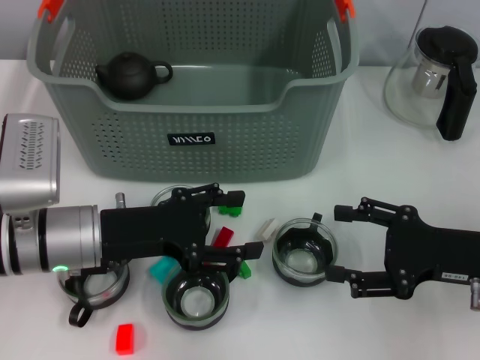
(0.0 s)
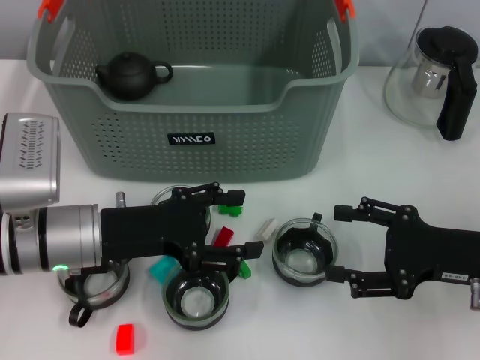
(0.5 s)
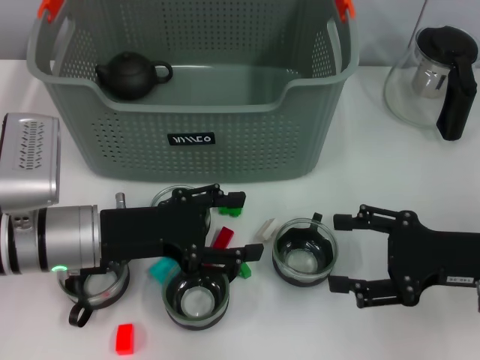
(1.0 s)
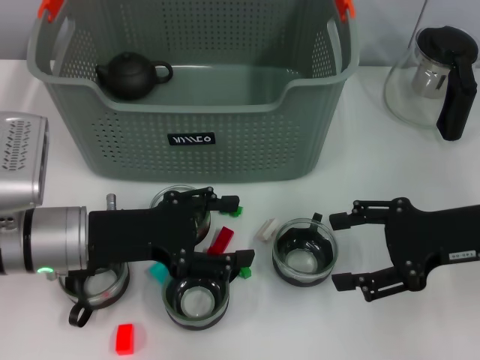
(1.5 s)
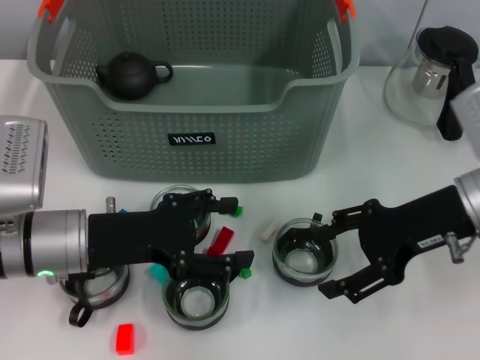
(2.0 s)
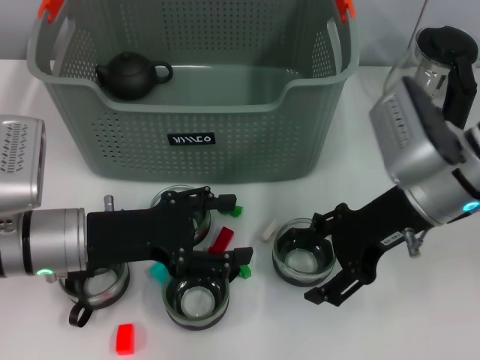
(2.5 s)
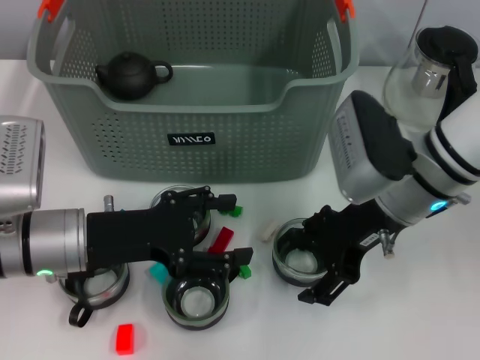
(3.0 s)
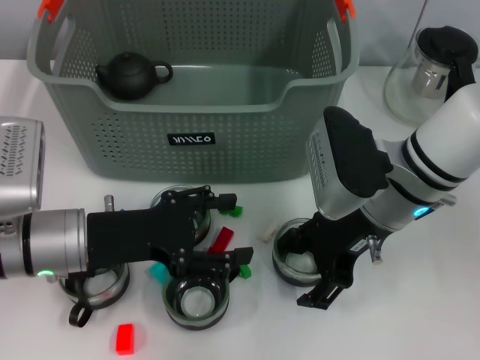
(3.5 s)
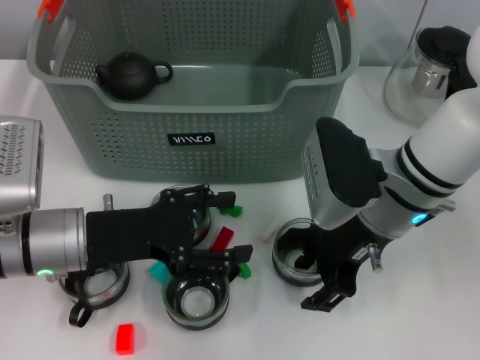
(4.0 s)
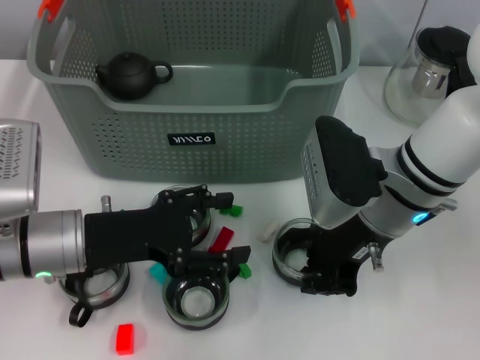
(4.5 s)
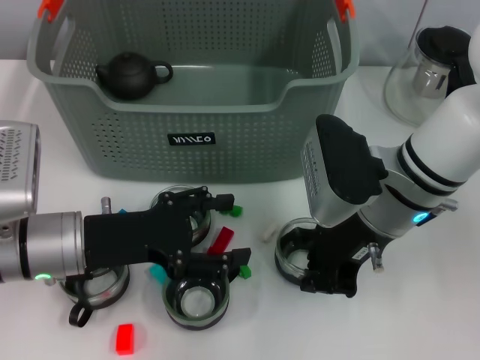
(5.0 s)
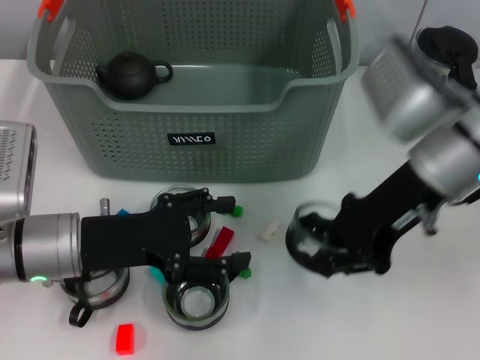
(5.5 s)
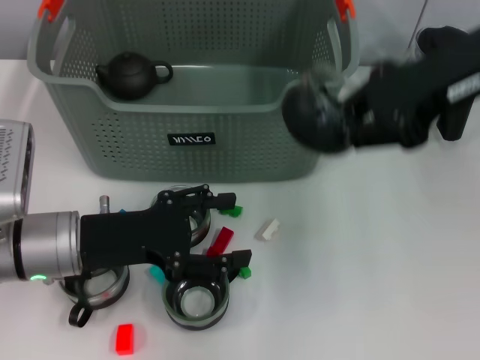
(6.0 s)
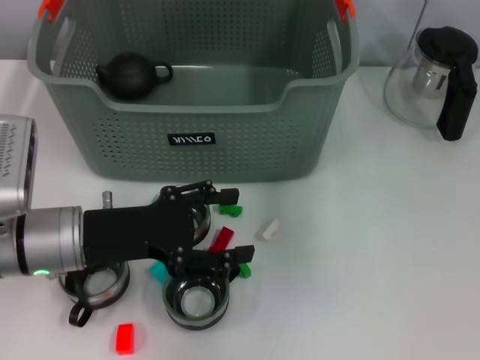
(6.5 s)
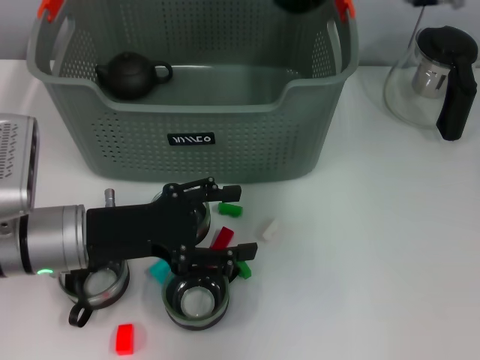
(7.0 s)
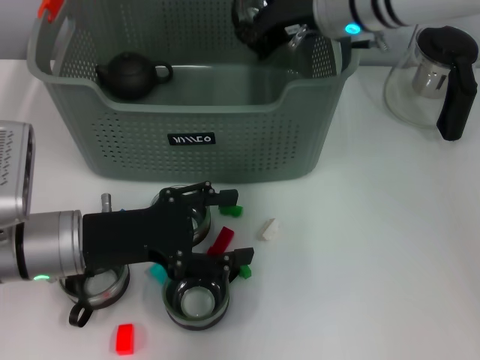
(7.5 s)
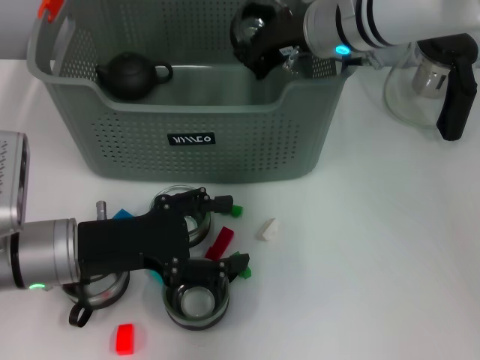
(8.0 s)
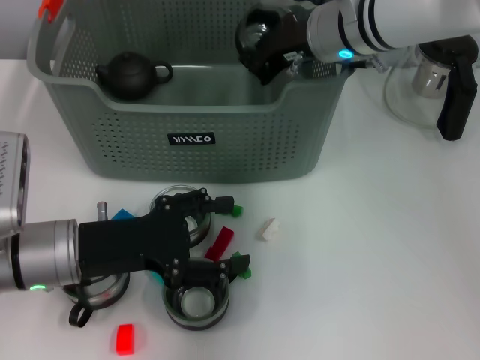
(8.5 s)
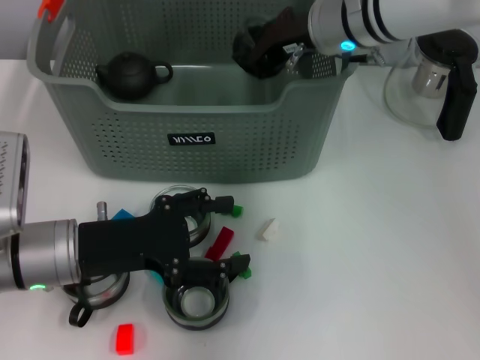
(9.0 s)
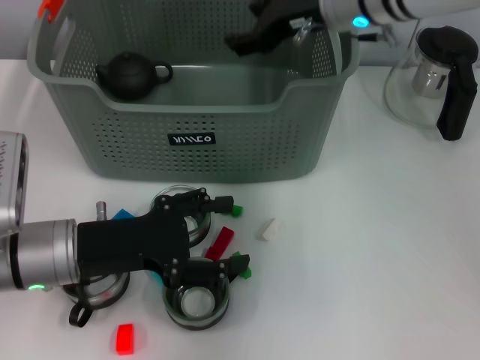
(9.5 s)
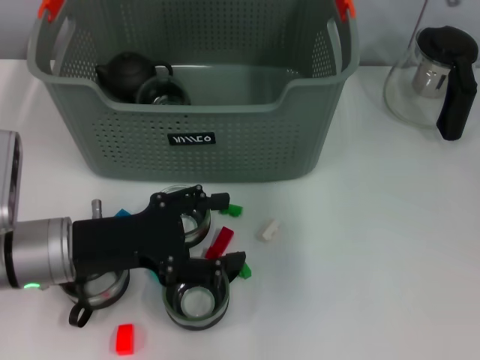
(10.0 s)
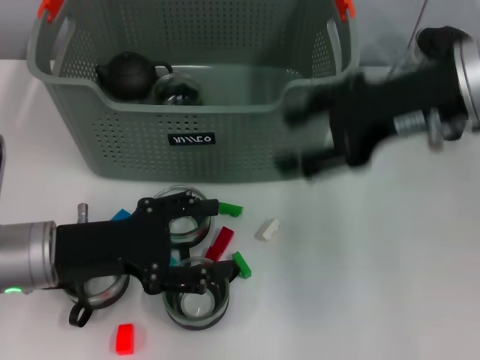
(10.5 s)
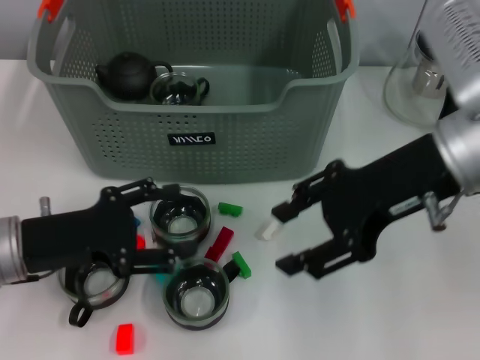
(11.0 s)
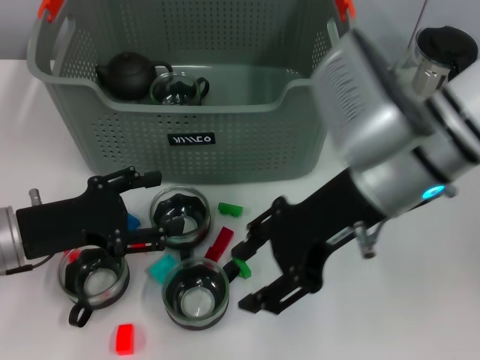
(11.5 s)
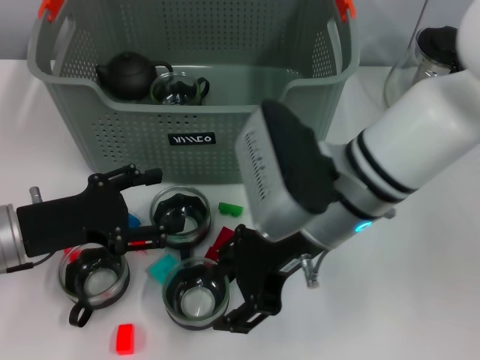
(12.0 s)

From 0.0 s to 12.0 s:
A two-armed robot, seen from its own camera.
Task of the whole recording: pick up the teacup on the table and place it into the storage bin, pick up the block on the table and place it into the storage bin.
Step, from 0.0 s to 4.5 s: Grasp the cup with right gripper.
Step, from 5.0 s to 9.0 s: Place the cup in the storage box with right gripper.
From 0.0 s to 2.0 s: The right gripper goes some 10 cm forward and upward.
From 2.0 s to 4.0 s: The right gripper travels to the left by some 10 cm.
From 4.0 s to 6.0 s: The right gripper shifts roughly 20 cm upward and to the right, and closes its fingers.
From 6.0 s to 8.0 s: The right gripper moves to the left, downward and forward, approximately 20 cm.
From 8.0 s to 10.0 s: The right gripper heads upward and to the right, covering about 10 cm, and opens.
From 10.0 s to 12.0 s: The right gripper is displaced downward, backward and to the left by about 20 cm.

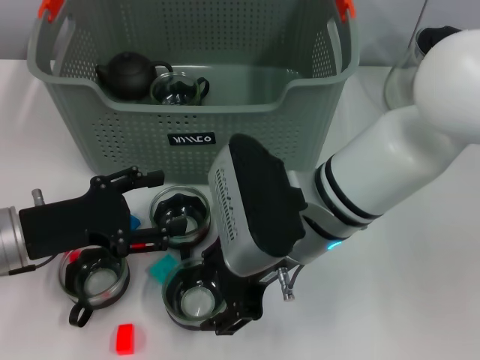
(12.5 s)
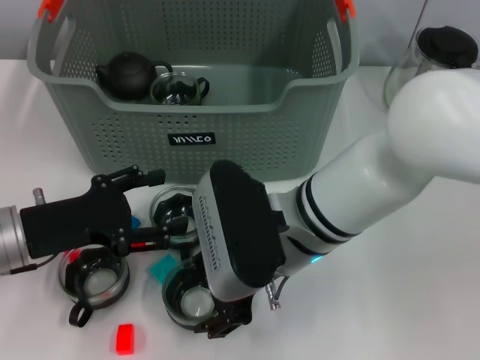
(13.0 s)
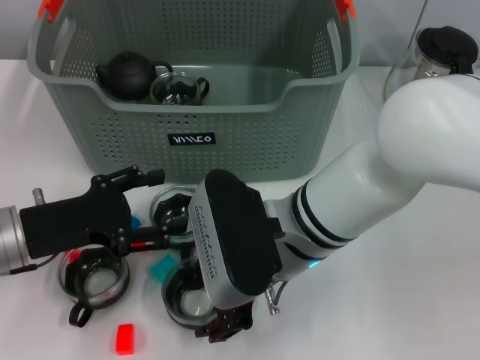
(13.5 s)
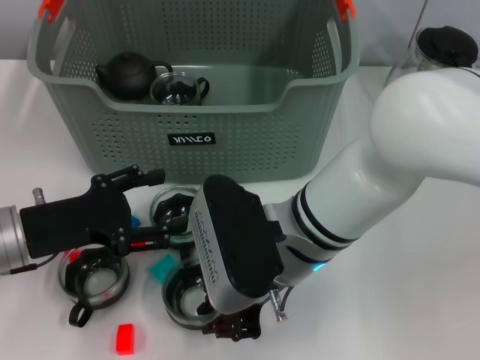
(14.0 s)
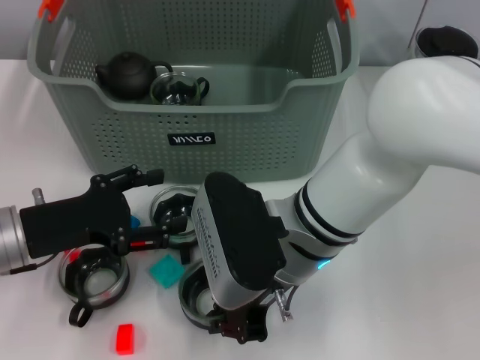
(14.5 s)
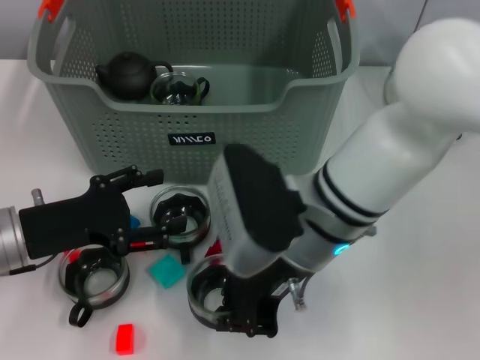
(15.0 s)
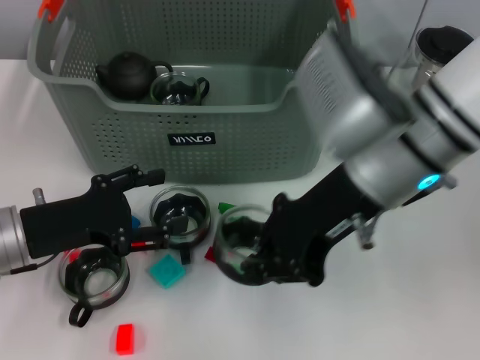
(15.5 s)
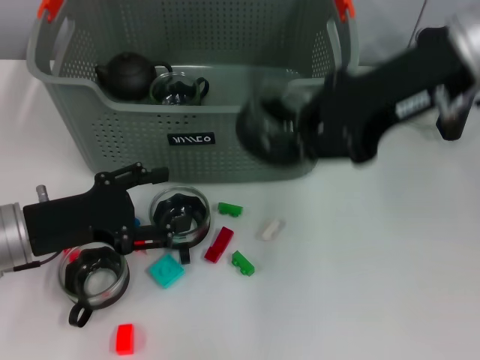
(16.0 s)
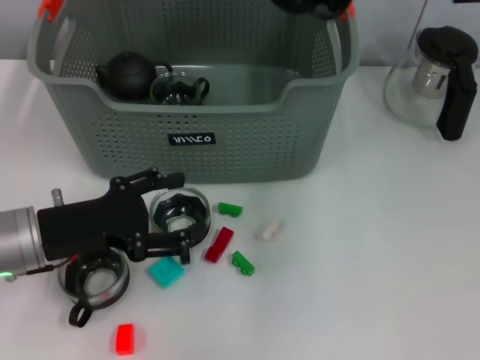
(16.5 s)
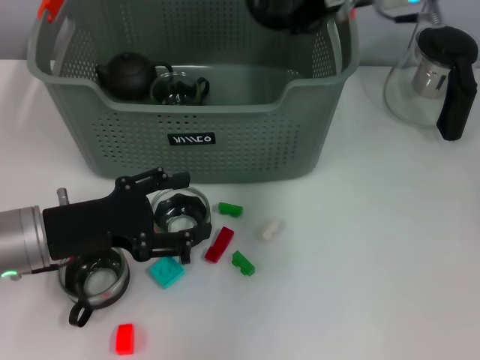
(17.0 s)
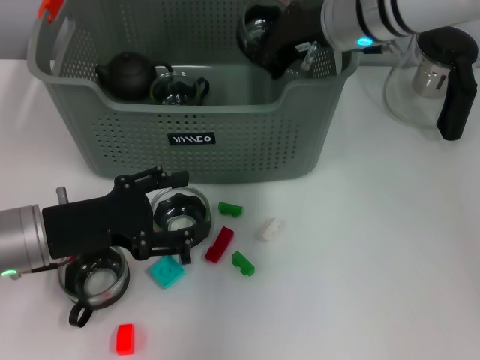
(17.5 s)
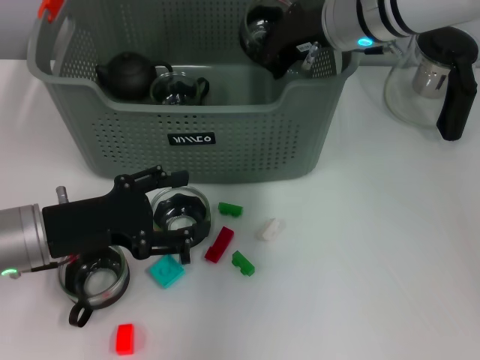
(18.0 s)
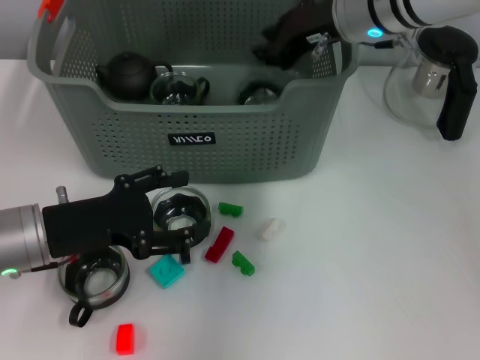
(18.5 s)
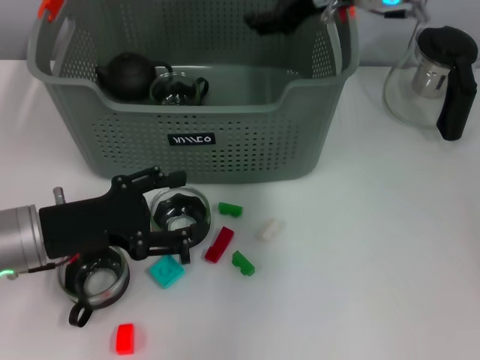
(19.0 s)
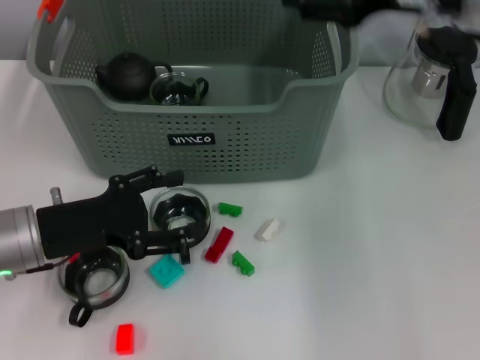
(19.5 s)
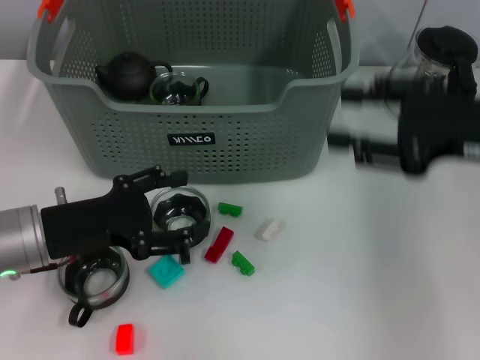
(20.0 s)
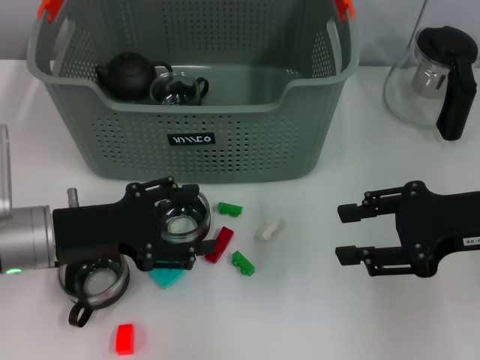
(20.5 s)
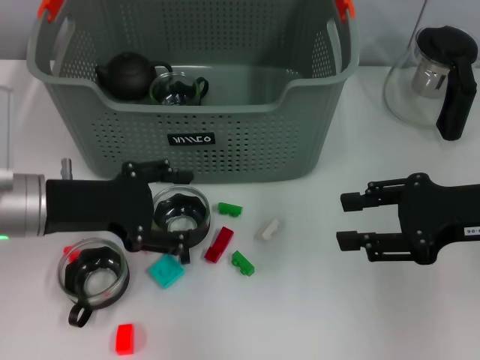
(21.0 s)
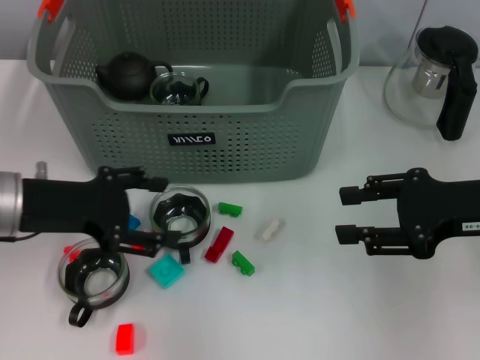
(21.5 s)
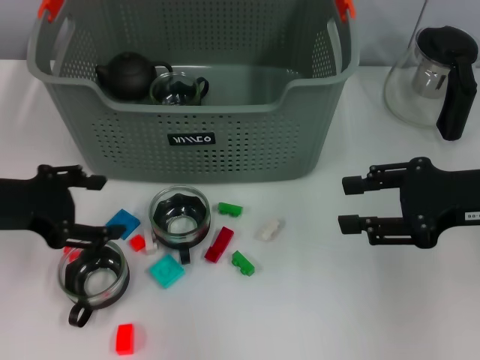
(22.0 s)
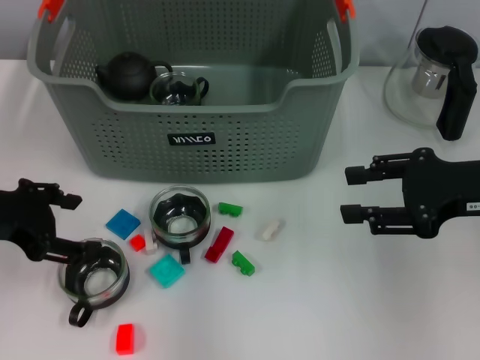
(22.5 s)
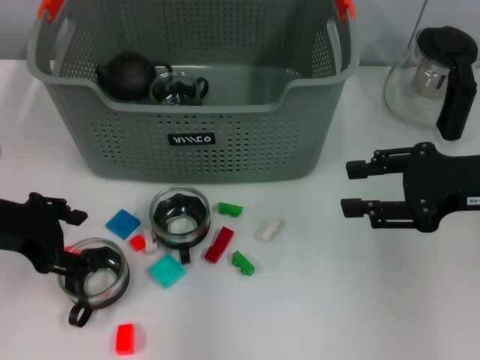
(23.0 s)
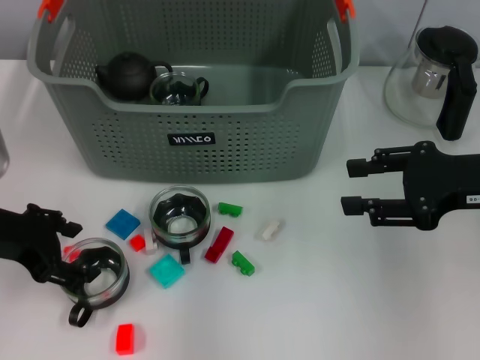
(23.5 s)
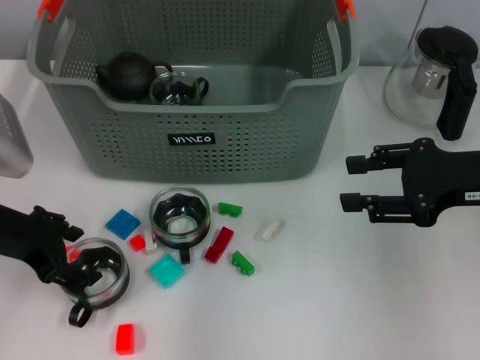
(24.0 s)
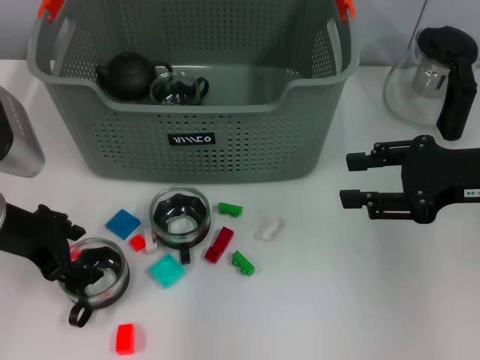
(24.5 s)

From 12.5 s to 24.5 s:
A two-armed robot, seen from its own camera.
Task of the whole recording: pick up the teacup on the table and place it into the storage bin, pick up the block on the table and place it into the storage bin.
Step, from 14.5 s to 18.5 s: Place the cup in the storage box with right gripper.
From 12.5 s to 14.5 s: The right gripper closes.
From 14.5 s to 16.5 s: The right gripper goes about 25 cm upward, to the right and forward.
From 16.5 s to 18.5 s: The right gripper travels downward and to the left by about 10 cm.
From 18.5 s to 20.5 s: The right gripper goes about 25 cm backward and to the right, and opens its fingers.
From 20.5 s to 22.5 s: The left gripper travels upward and to the left by roughly 10 cm.
From 22.5 s to 24.5 s: The grippers move only a little.

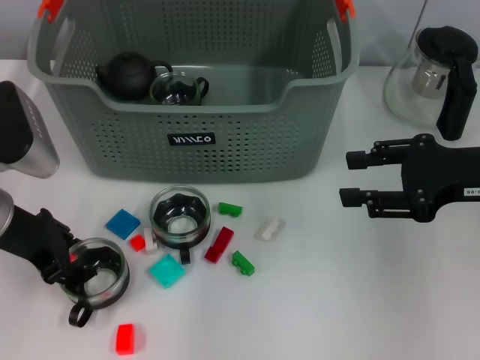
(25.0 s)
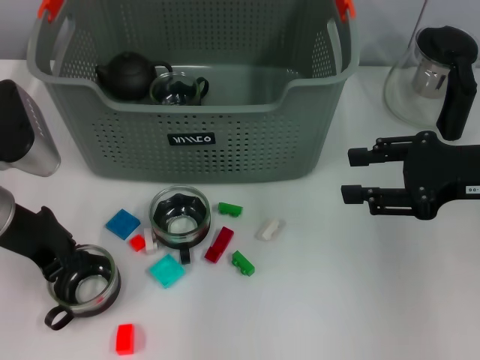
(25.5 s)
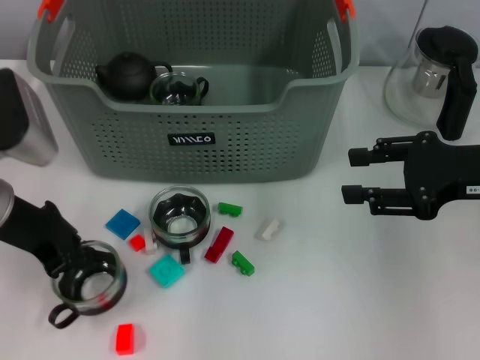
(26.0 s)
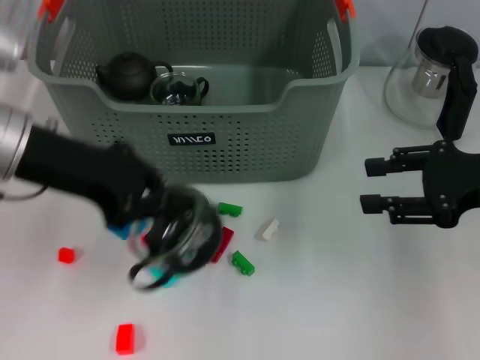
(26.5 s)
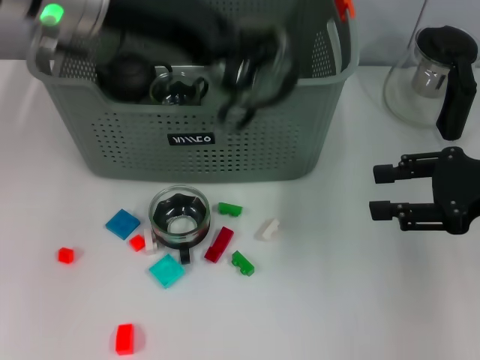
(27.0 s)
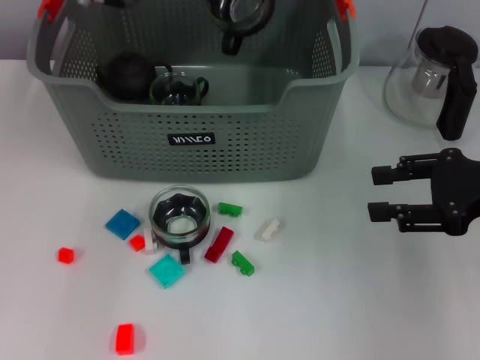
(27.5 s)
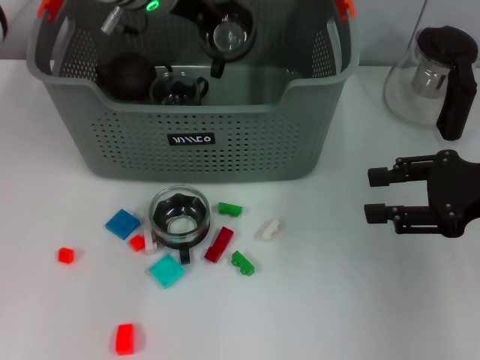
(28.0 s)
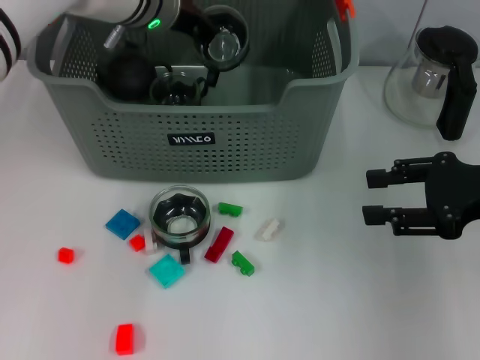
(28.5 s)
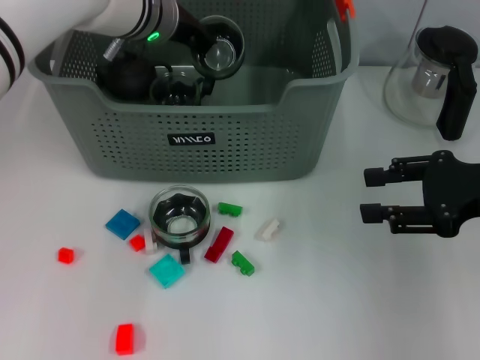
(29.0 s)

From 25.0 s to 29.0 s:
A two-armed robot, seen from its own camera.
Task of the whole recording: pick up the teacup on the table and place it into the storage bin, pick up the block on the table and place it into the storage bin.
From 25.0 s to 27.0 s: The left gripper goes roughly 20 cm upward, to the right and forward, and closes up.
From 27.0 s to 29.0 s: The left gripper moves downward and forward, some 10 cm.
